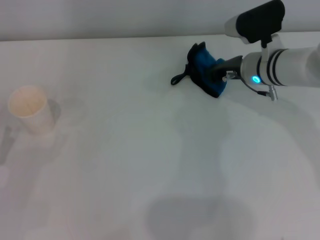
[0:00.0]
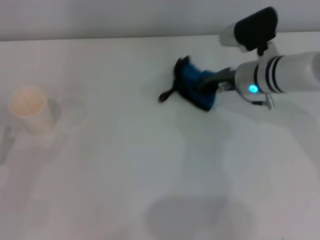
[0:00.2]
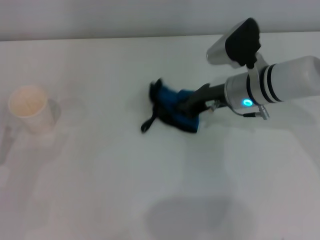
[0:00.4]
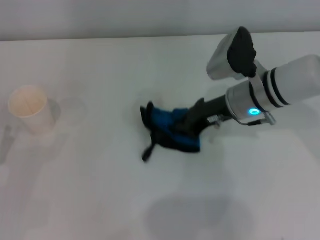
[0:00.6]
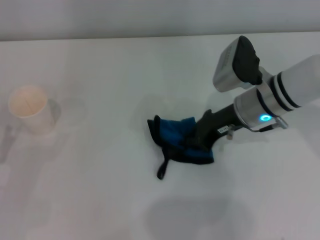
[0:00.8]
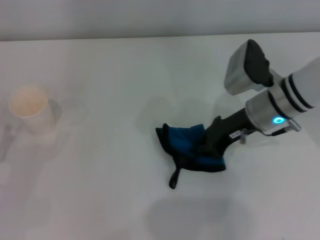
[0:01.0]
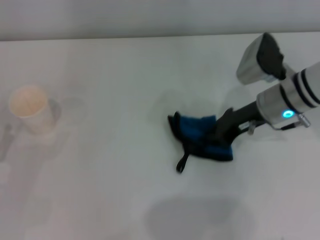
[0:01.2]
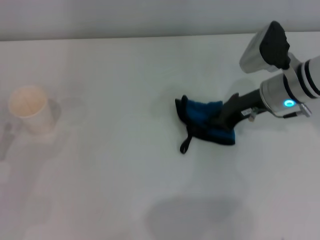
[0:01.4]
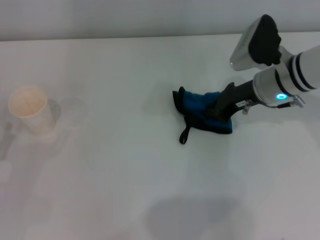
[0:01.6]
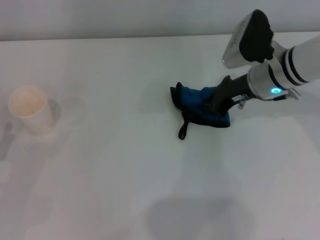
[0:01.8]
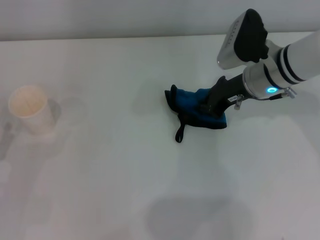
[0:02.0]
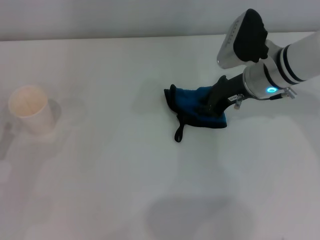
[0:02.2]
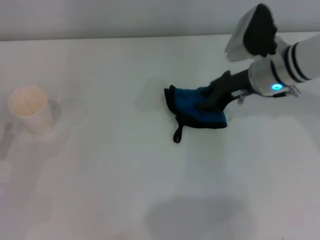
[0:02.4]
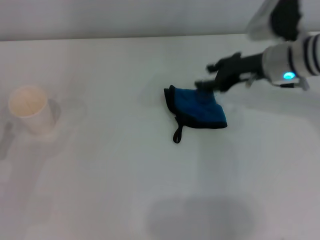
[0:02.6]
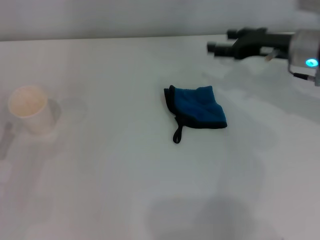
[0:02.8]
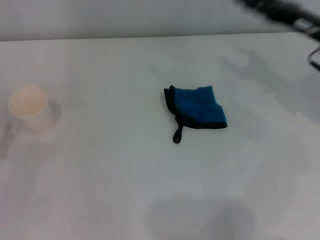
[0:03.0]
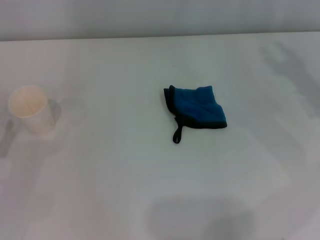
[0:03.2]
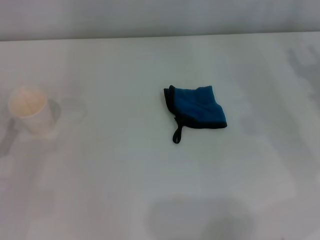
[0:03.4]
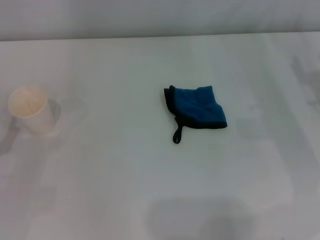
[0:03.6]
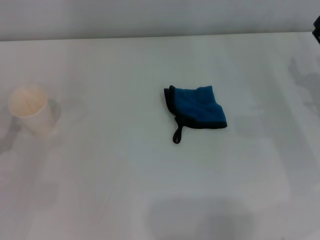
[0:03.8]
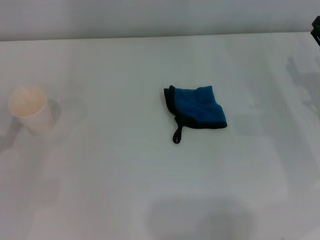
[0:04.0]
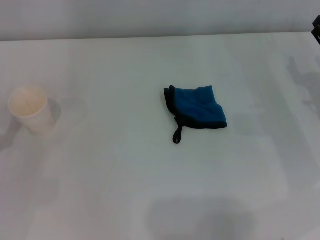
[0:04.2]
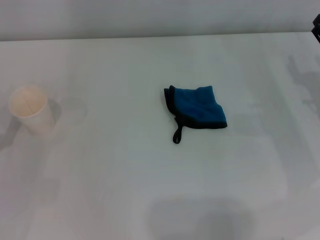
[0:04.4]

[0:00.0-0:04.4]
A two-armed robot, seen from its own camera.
Step, 0.6 to 2.2 s: Place the rag on the table with the right gripper.
1.4 to 3.0 s: The right gripper is displaced to the right by about 5 cm, and opens its fingers.
3.0 to 4.4 s: The right gripper is displaced downward by approximately 10 cm.

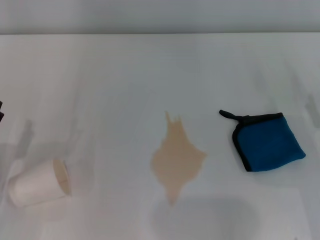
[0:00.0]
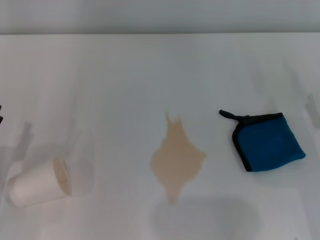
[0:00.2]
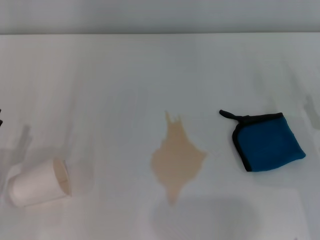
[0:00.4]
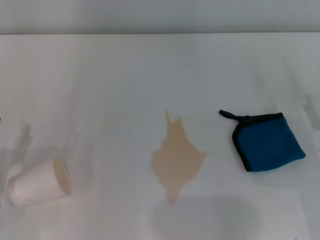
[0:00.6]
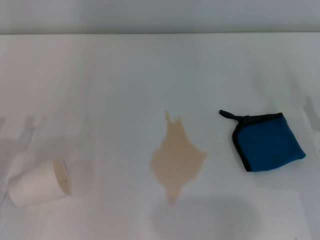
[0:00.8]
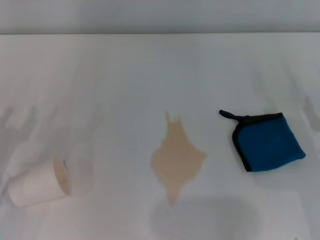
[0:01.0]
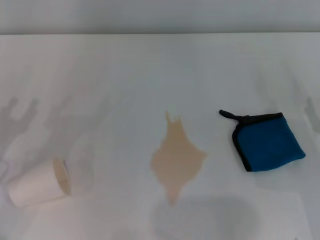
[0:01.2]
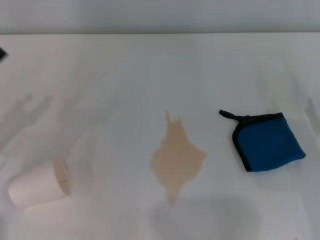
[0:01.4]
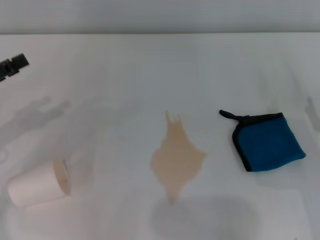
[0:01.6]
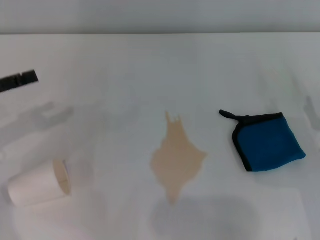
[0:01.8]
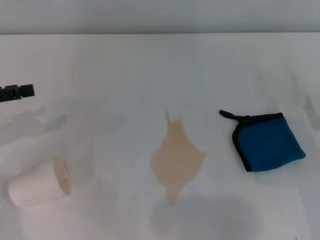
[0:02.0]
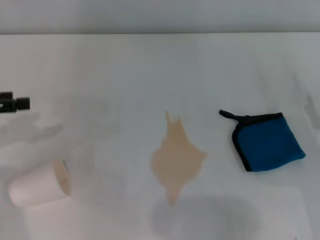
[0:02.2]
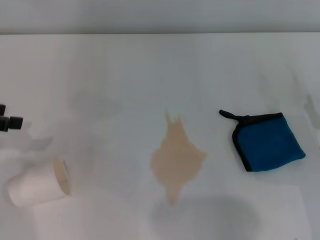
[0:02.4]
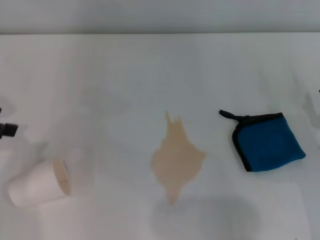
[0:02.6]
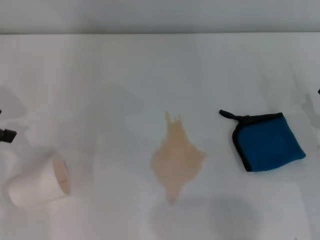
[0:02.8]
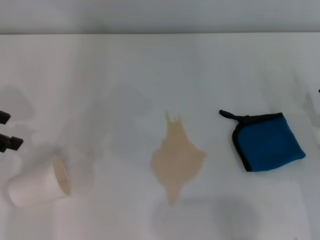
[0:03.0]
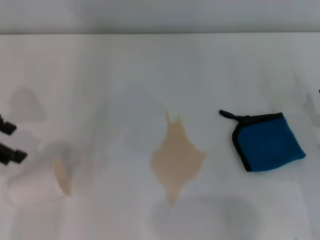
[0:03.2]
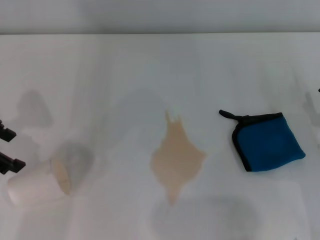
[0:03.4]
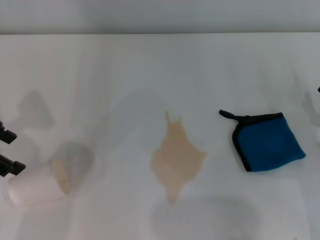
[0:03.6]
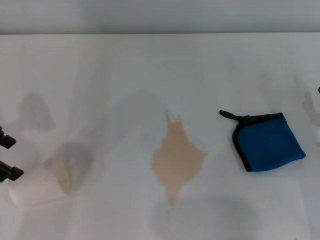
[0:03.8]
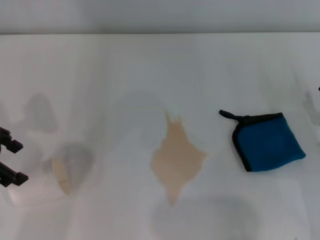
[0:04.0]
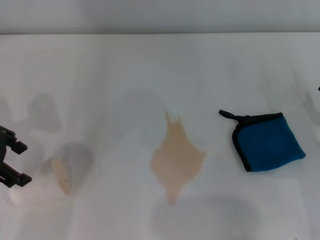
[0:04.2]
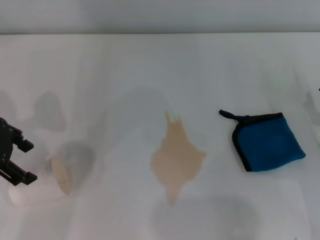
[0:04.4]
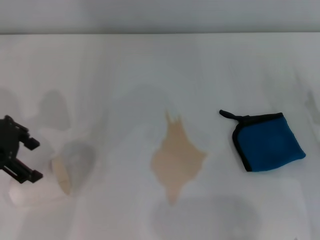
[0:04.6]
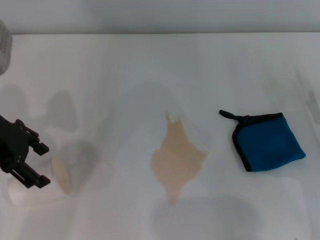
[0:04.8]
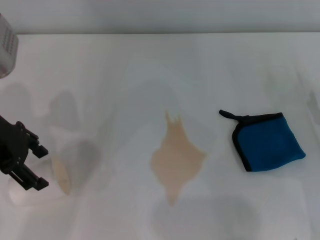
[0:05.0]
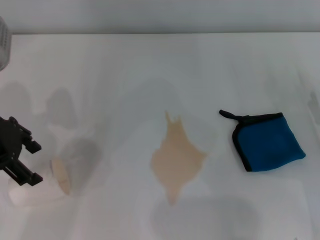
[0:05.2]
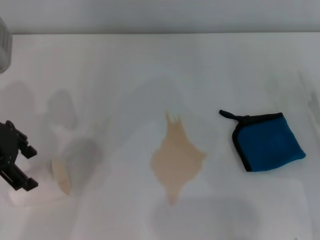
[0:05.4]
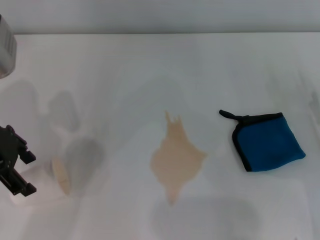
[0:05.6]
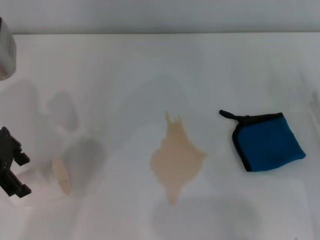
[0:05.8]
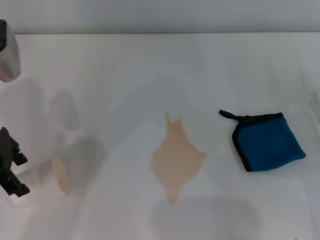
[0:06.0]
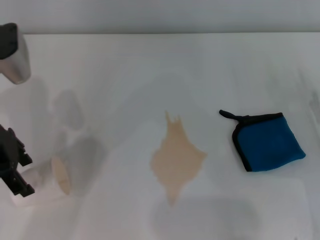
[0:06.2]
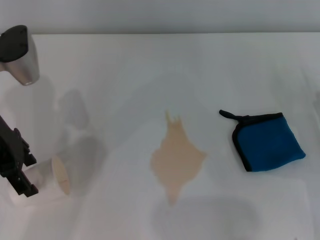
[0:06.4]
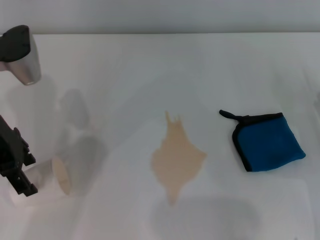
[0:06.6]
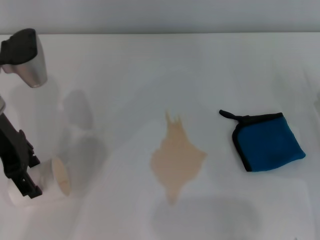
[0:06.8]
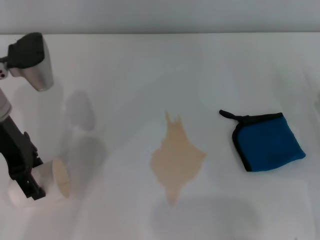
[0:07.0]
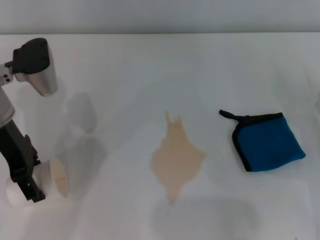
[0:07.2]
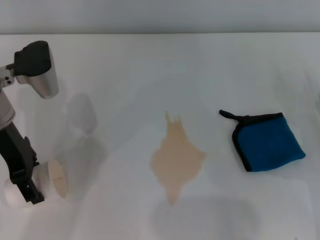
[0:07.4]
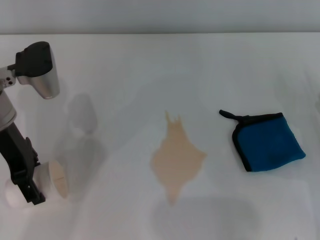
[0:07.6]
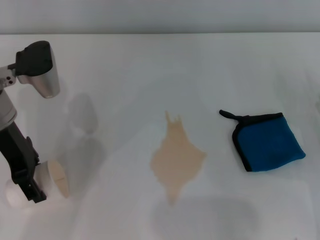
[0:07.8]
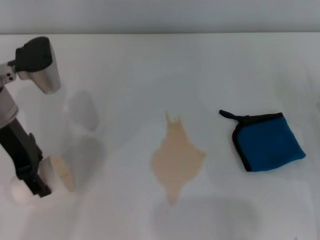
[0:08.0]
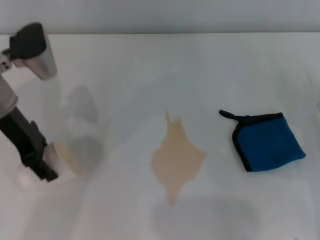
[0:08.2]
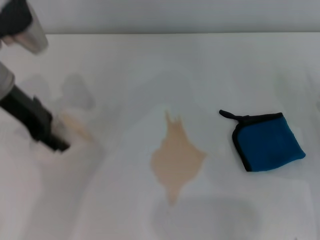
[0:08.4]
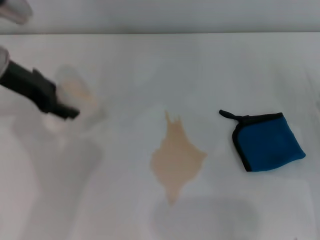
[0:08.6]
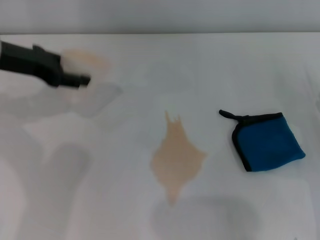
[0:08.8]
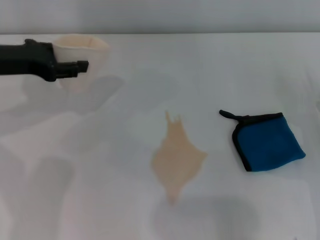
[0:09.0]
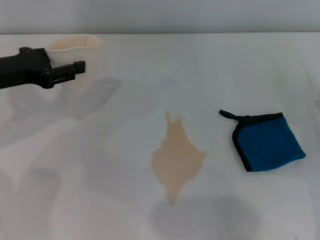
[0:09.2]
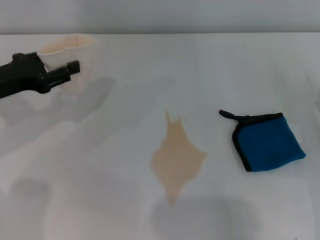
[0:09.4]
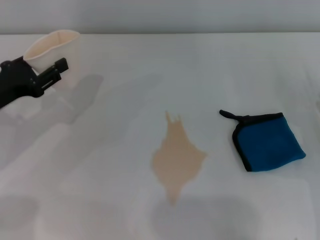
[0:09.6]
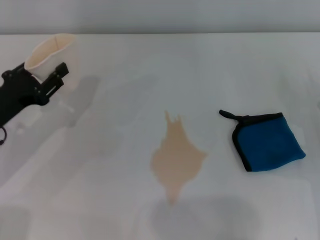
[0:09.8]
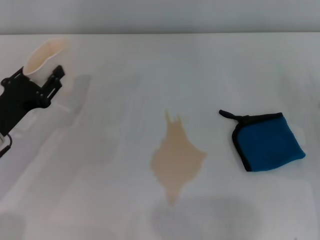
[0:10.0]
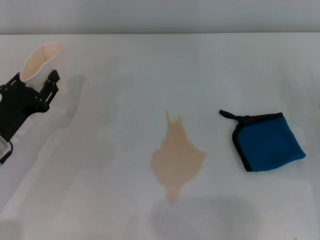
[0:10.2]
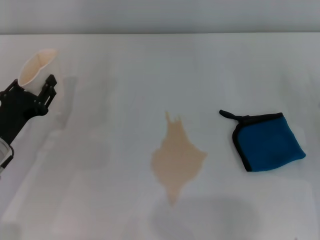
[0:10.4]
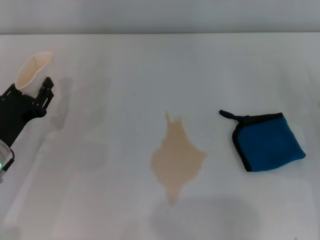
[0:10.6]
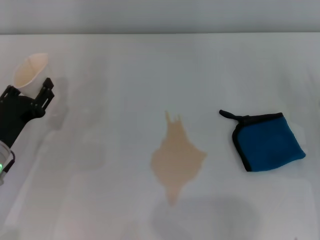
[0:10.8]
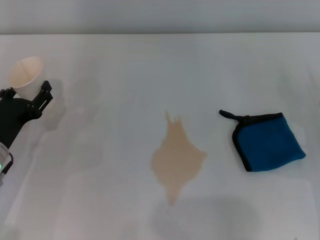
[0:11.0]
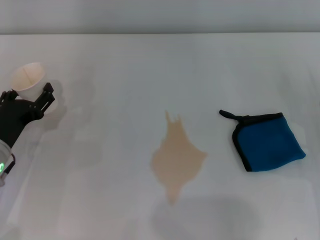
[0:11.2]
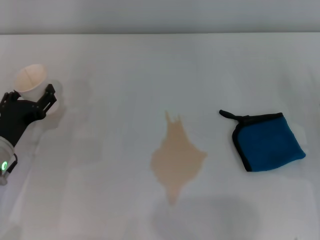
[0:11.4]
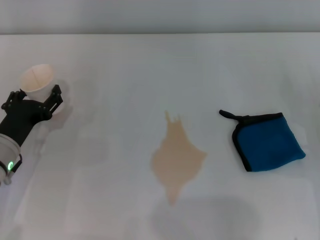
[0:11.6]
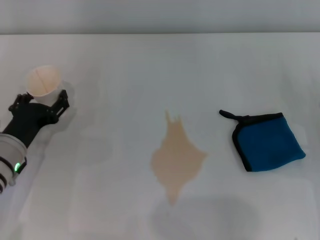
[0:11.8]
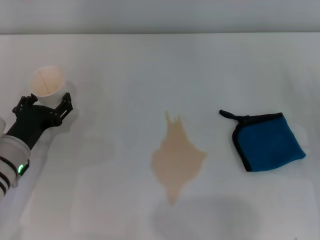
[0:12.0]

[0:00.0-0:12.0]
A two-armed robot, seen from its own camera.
Step, 0.0 to 7.8 s: Grasp the paper cup with the left gripper.
Step, 8.0 to 11.8 s: Stand the paper cup upright with the left gripper.
0.0 to 1.6 s: The left gripper heads upward, forward and to the left, covering about 15 cm.
1.6 to 3.0 s: The left gripper goes about 10 cm upward.
3.0 to 4.4 s: The left gripper travels to the right by some 5 cm.
4.4 to 6.0 s: The grippers stay close to where they were, moving slightly.
6.0 to 7.6 s: The left gripper ends up roughly 5 cm from where it was.
7.6 to 9.0 s: The left gripper is displaced to the left by about 5 cm, and closes.
9.0 to 10.4 s: The left gripper heads downward and backward, covering about 15 cm.
10.4 to 12.0 s: The left gripper opens.

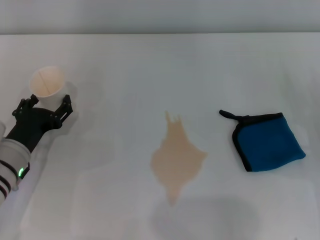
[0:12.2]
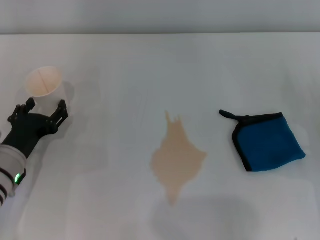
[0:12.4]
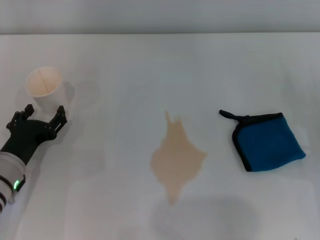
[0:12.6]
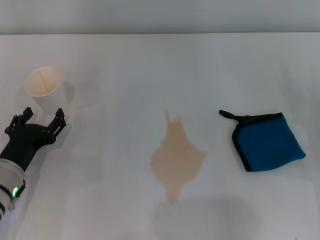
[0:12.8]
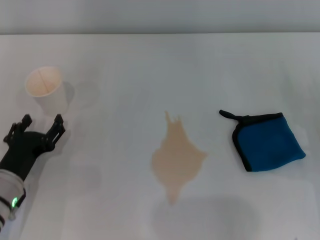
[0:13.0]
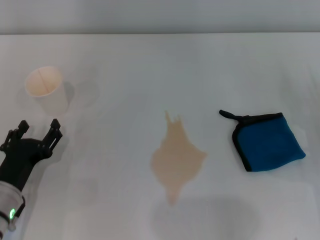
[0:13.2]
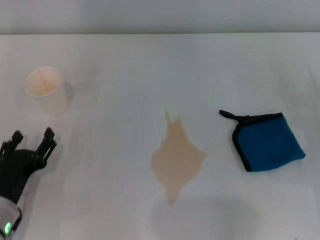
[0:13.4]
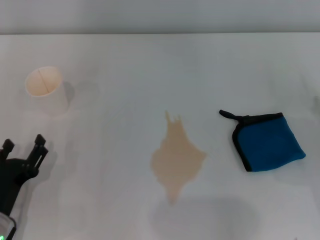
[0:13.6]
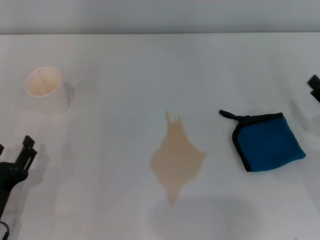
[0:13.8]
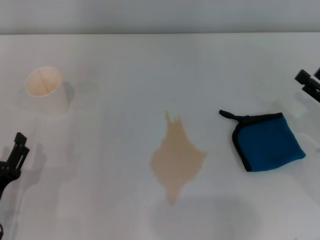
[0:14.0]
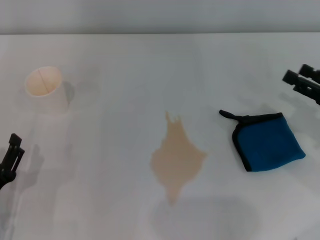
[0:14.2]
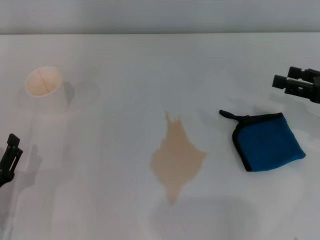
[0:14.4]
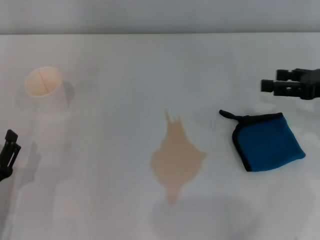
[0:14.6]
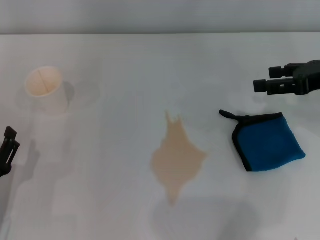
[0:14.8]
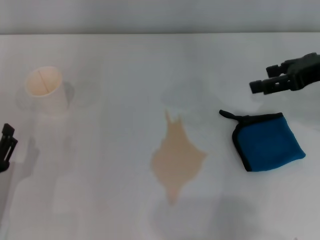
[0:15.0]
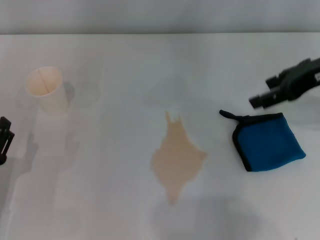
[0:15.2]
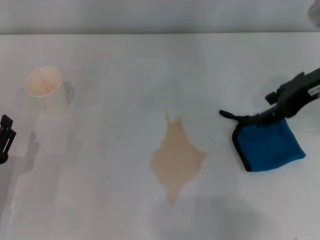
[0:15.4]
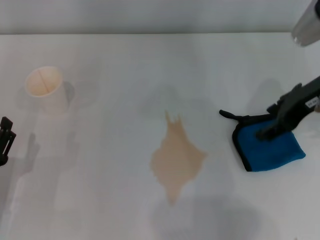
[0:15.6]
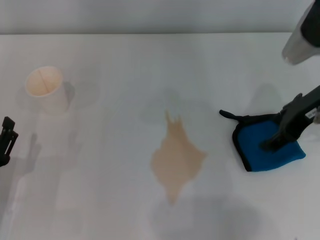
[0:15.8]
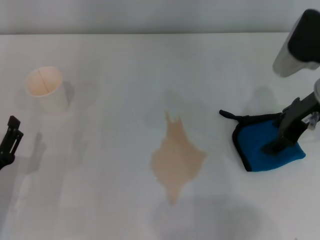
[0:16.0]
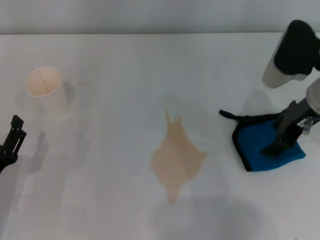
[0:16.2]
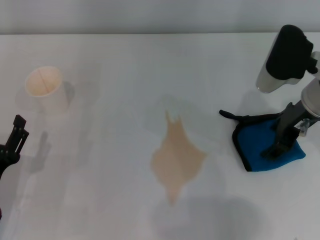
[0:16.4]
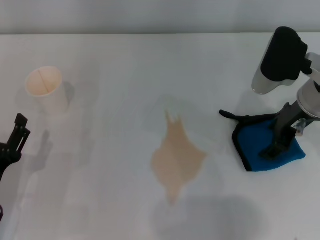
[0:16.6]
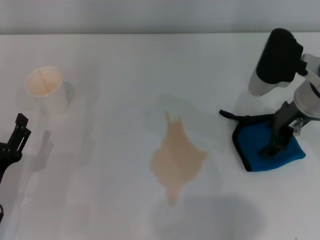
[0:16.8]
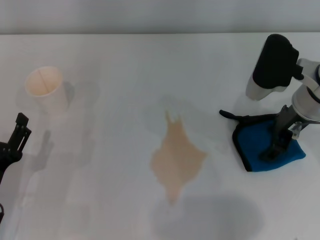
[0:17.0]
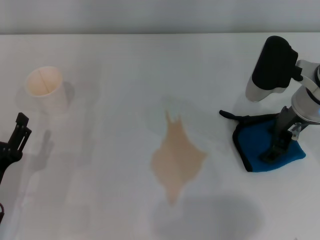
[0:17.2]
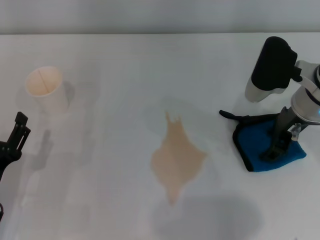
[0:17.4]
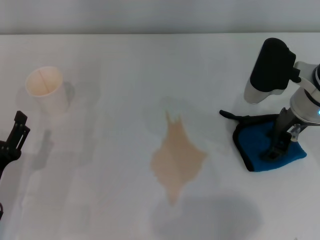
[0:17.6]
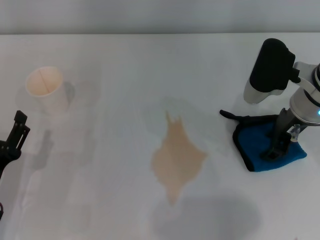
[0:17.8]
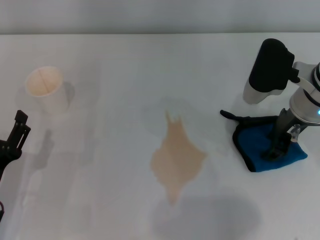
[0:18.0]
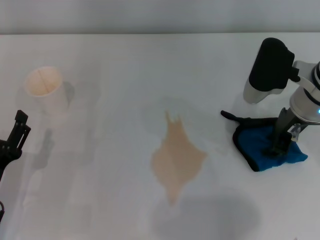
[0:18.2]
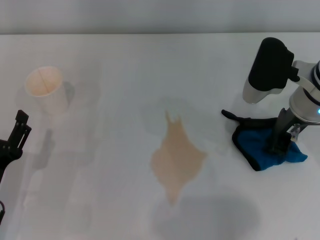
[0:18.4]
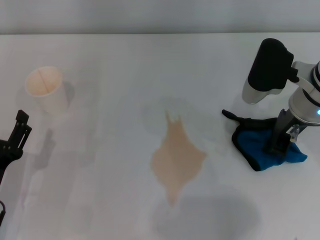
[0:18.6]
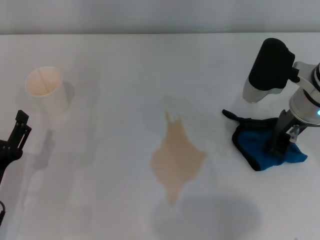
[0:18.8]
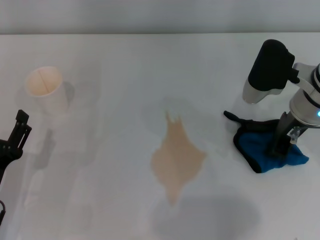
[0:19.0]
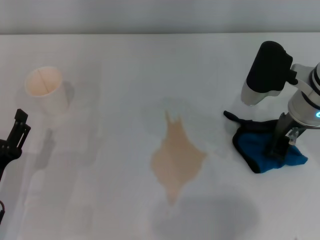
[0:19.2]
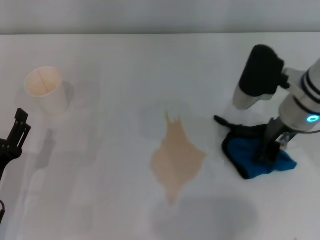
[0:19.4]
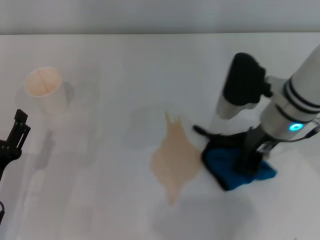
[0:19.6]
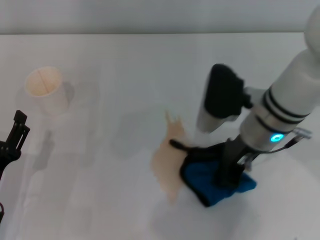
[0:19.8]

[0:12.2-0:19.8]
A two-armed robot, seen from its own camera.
Step, 12.2 to 18.4 s: Grasp the rag with the right gripper.
12.2 to 13.8 s: The left gripper heads backward, covering about 10 cm.
13.8 to 15.2 s: The right gripper moves upward and forward, approximately 20 cm.
15.2 to 16.8 s: The right gripper goes approximately 10 cm downward and to the left.
16.8 to 18.2 s: The right gripper closes up.
18.2 to 19.8 s: The right gripper shifts about 5 cm to the left, and closes up.
